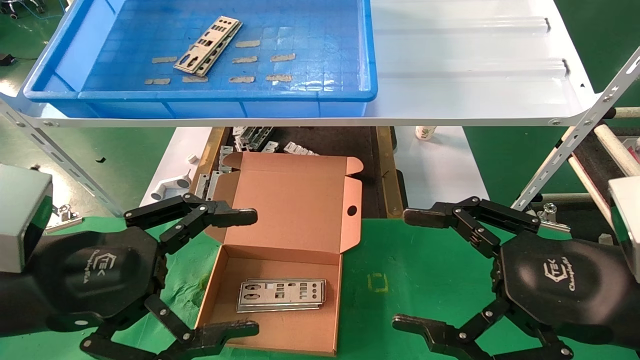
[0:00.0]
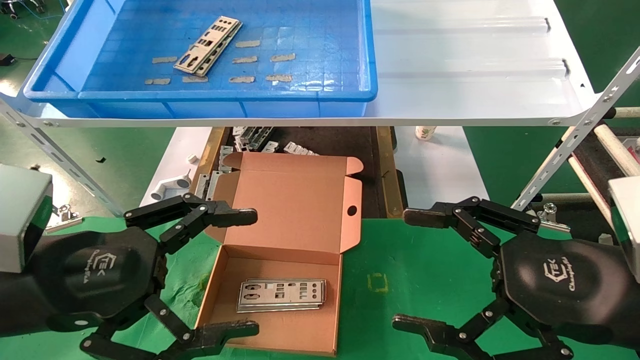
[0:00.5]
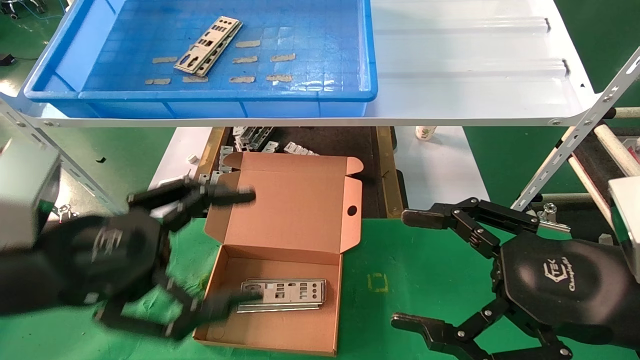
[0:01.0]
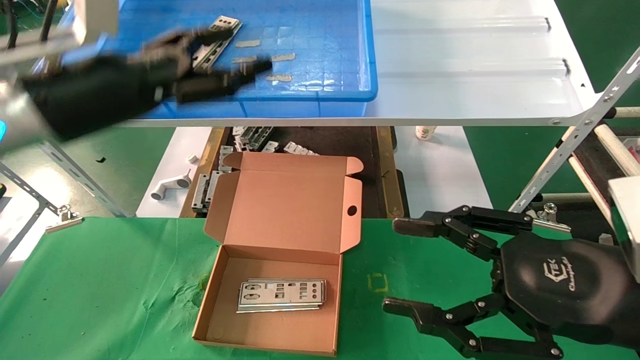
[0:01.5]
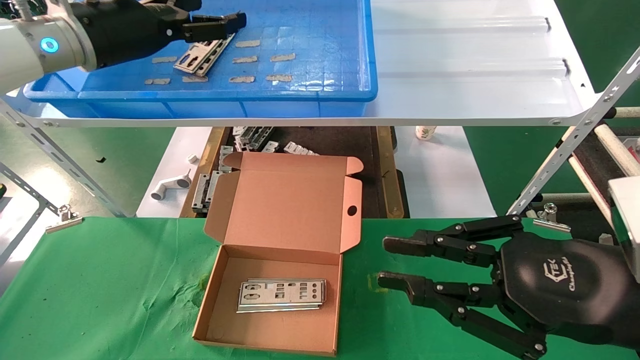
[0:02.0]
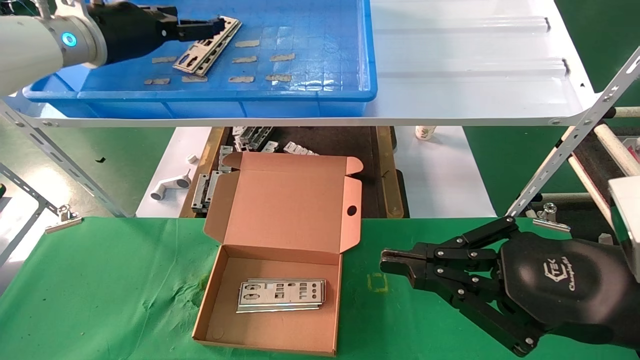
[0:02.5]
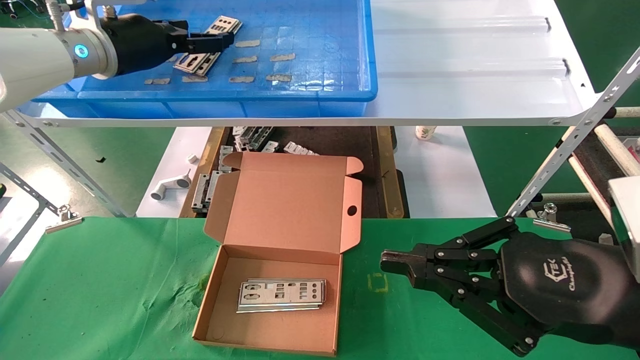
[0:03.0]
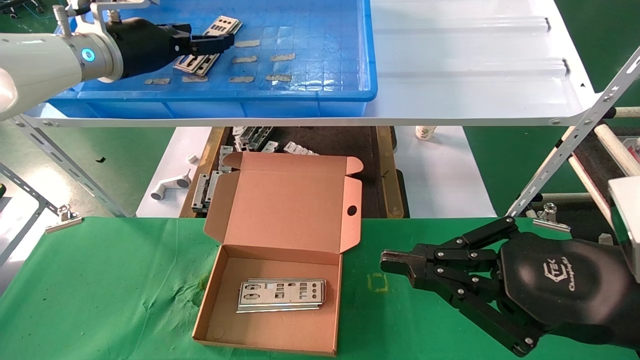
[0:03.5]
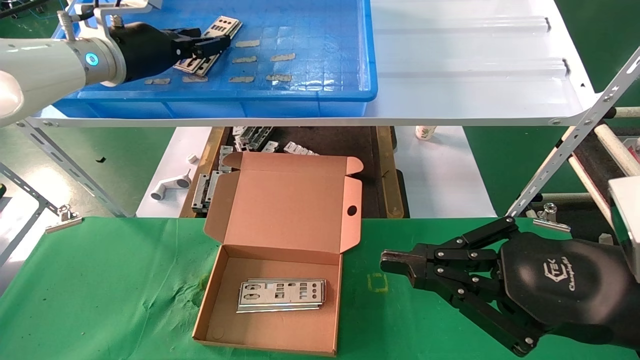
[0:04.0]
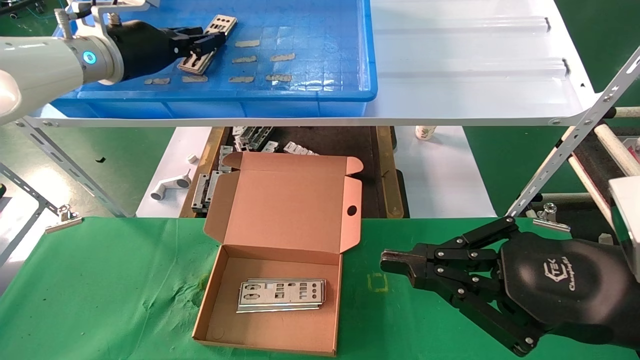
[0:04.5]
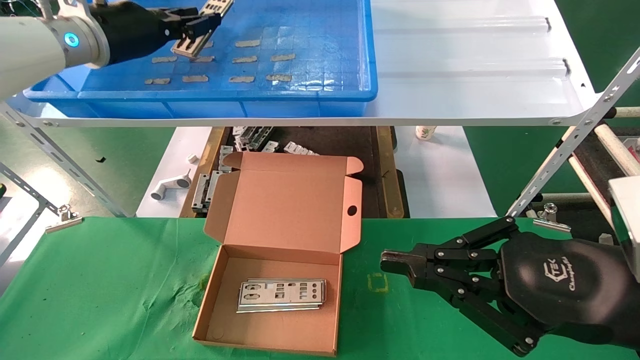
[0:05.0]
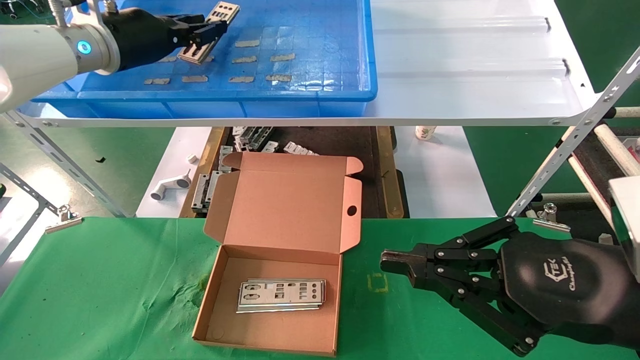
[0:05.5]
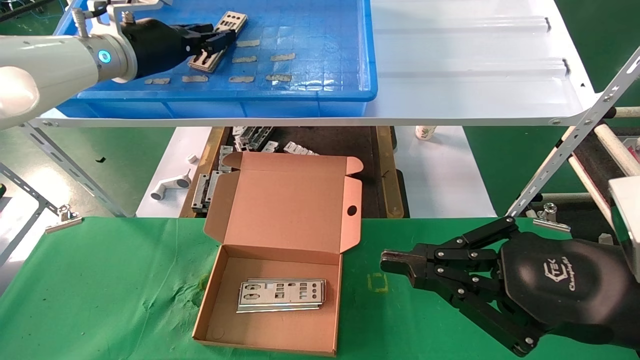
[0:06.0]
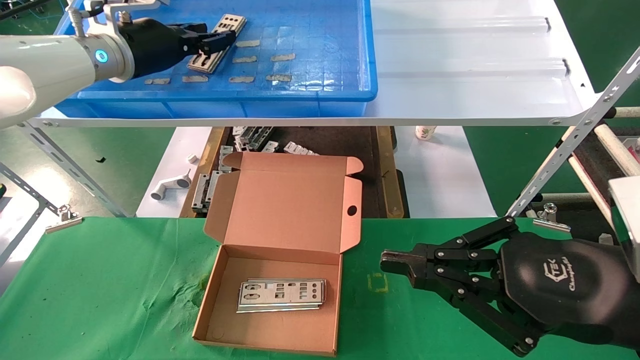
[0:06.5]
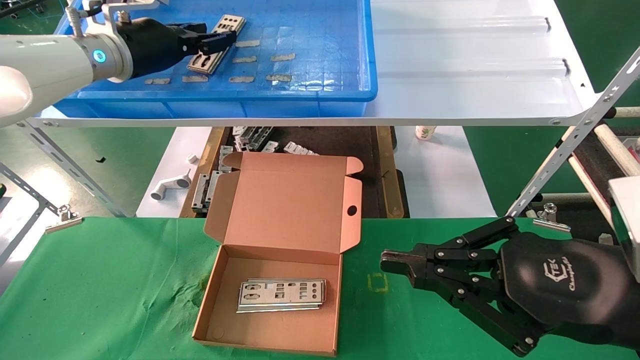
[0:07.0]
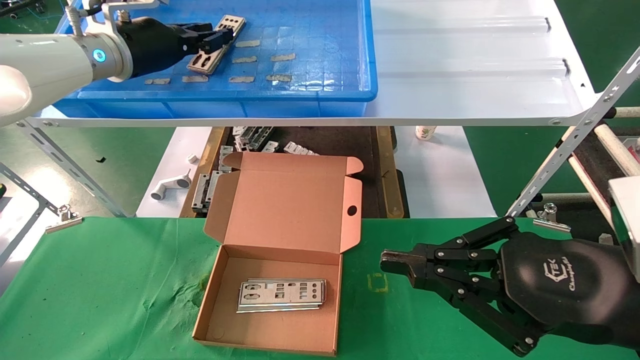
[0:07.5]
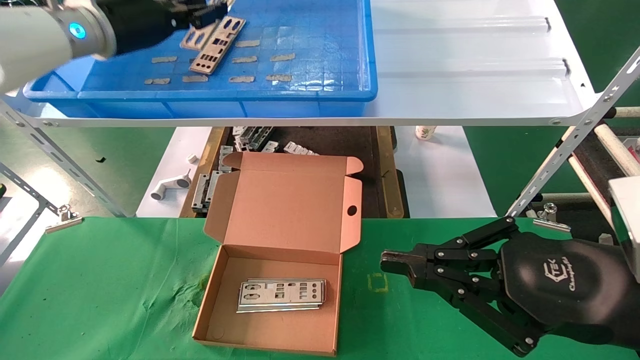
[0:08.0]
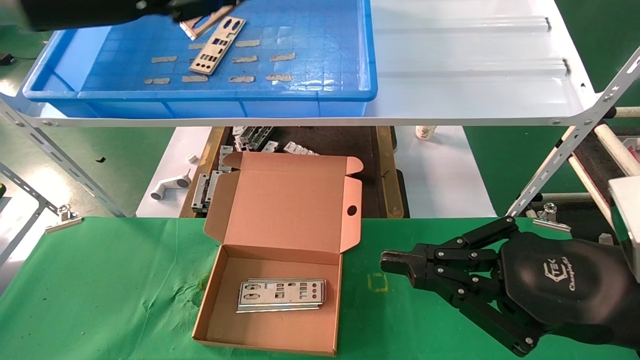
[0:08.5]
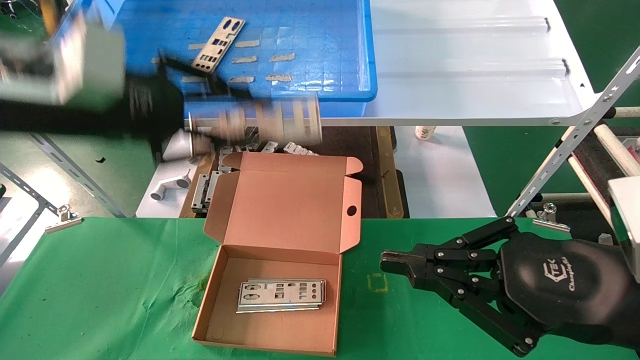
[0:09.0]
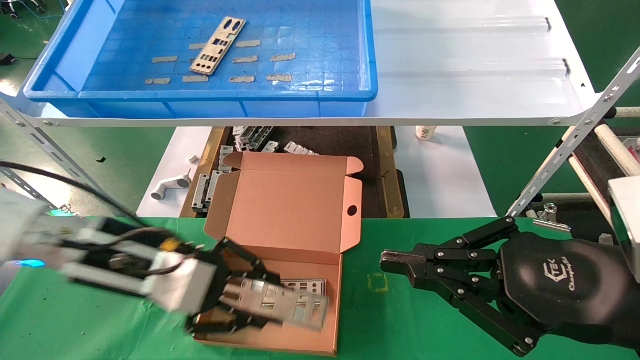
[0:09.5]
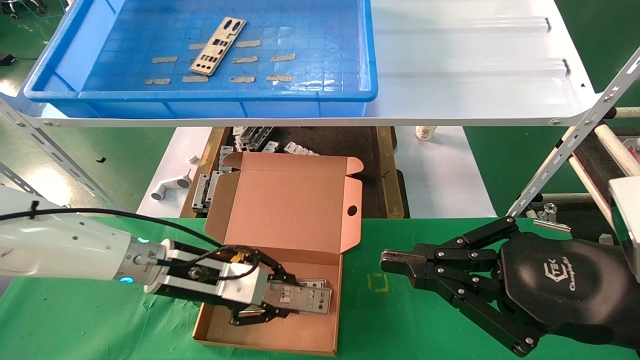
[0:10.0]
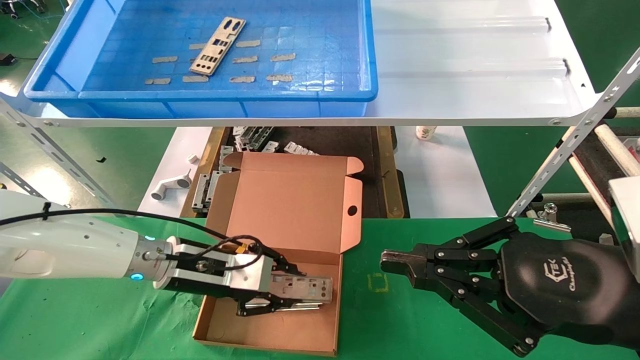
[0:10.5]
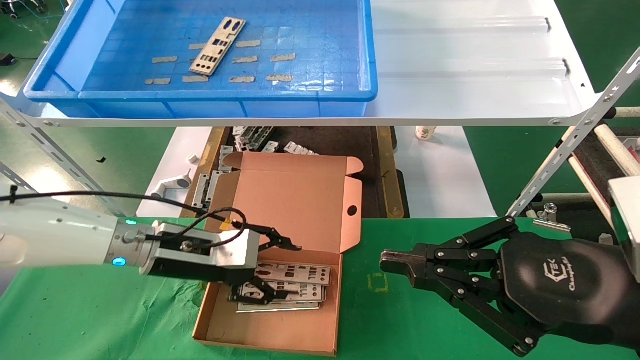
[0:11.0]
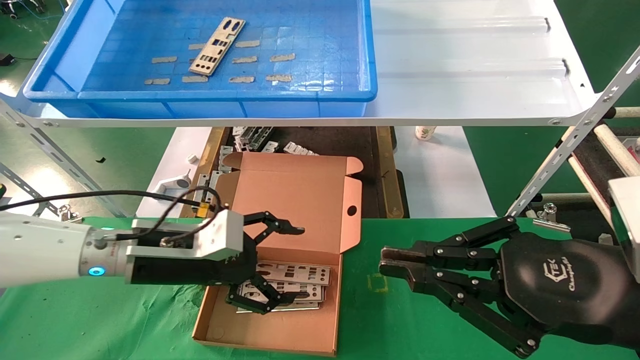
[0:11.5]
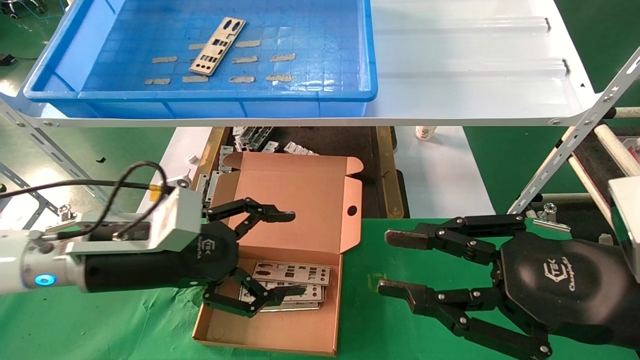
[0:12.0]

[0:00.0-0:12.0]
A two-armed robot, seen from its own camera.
Task of the whole recording: pick up the parts on the tray and put them in the cardboard box.
Step, 0:01.5 to 0:08.0: Pick up the IO bracket from the container box.
Step, 0:08.5 to 0:10.5: Place the IO bracket into the ingredient slot.
0:00.0 to 0:02.0: The right gripper closes; the left gripper is displaced forward and upward by approximately 30 cm.
0:02.0 to 0:04.0: The left gripper closes up.
0:04.0 to 0:06.0: The left gripper closes up.
0:06.0 to 0:08.0: The grippers stay close to where they were, moving slightly.
0:08.0 to 0:10.0: The left gripper goes roughly 30 cm downward.
0:10.0 to 0:12.0: The left gripper moves backward, some 5 cm, and opens.

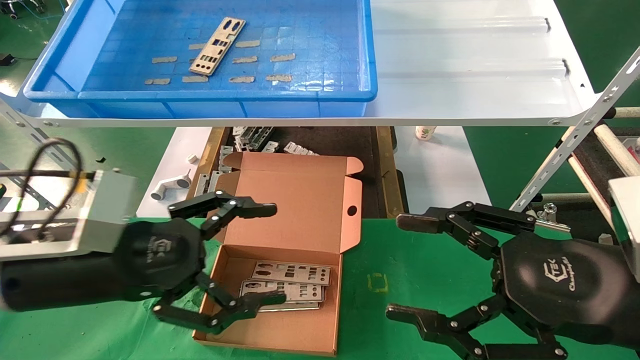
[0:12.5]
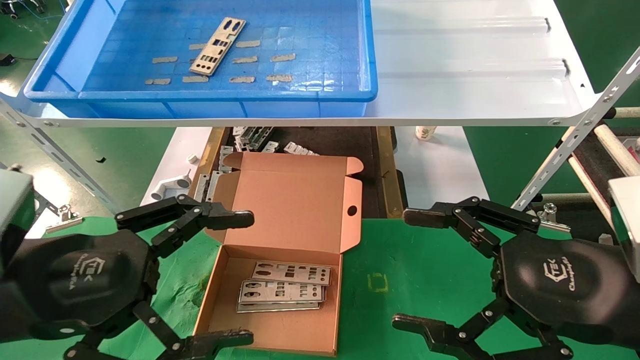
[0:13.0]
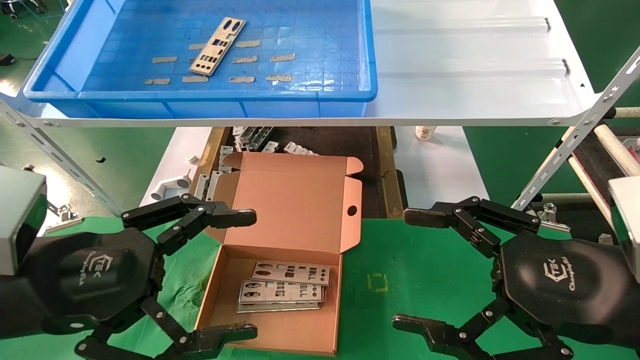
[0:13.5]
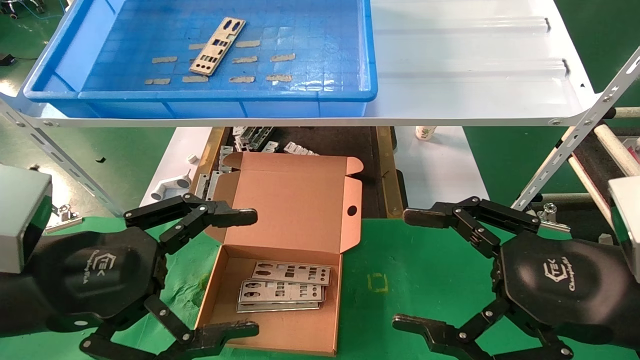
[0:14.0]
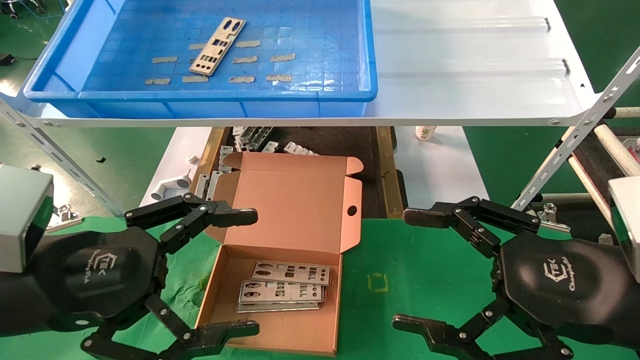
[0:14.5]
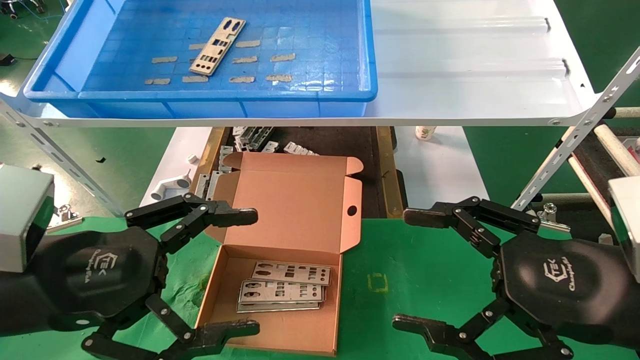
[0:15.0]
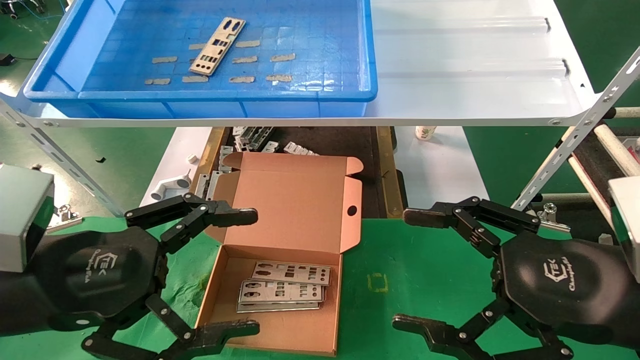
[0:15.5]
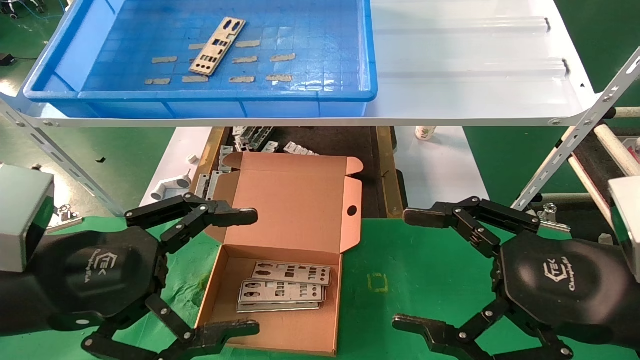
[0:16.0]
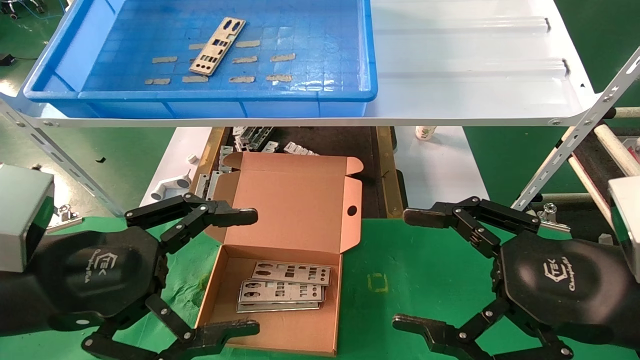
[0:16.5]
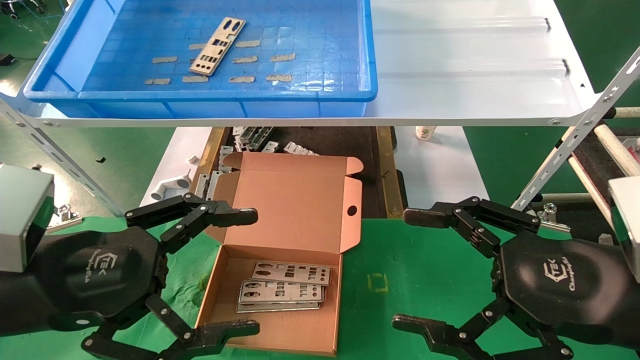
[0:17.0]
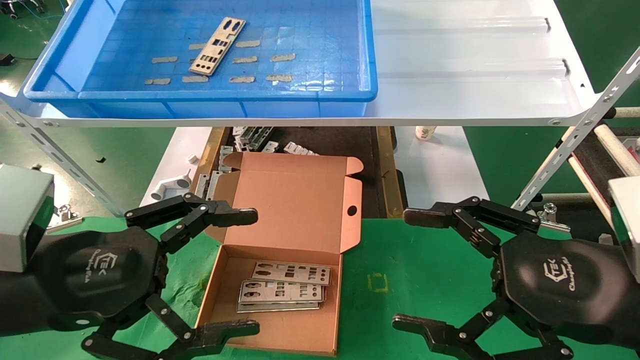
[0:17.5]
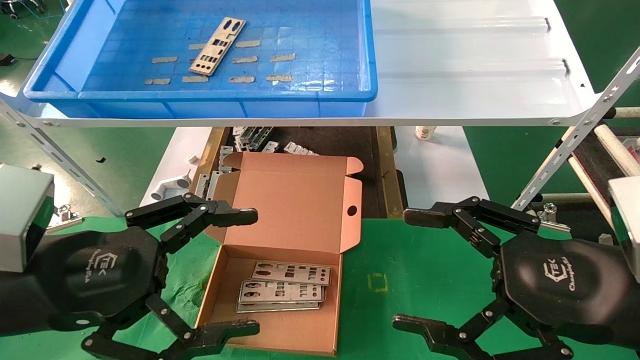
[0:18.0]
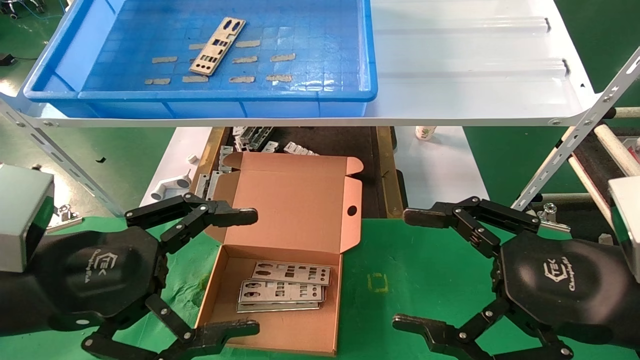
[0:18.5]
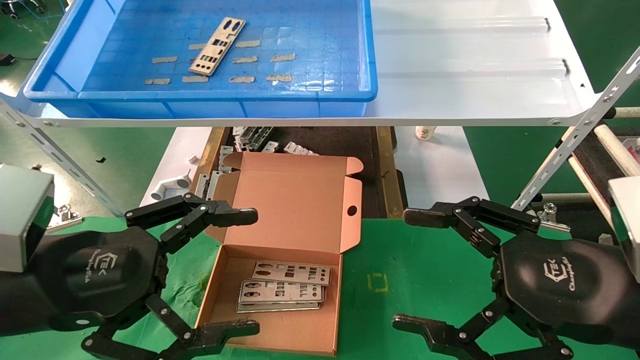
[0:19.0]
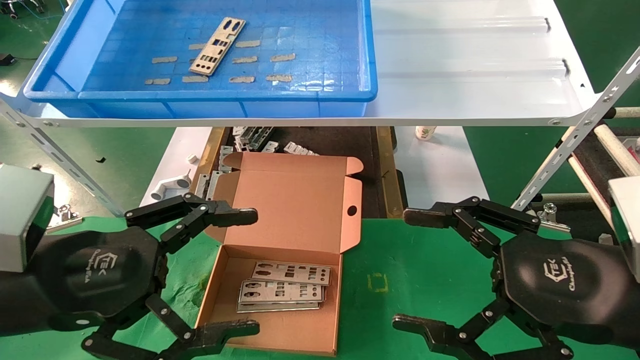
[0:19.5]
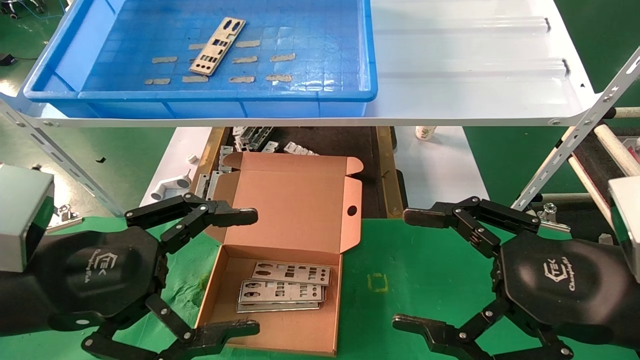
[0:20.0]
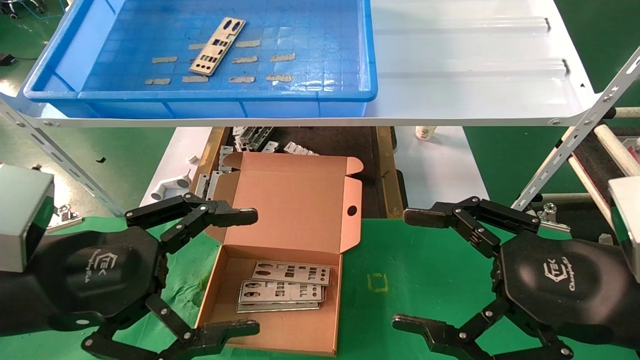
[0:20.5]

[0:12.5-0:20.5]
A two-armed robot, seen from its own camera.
Task of the whole recording: pick up the parts on the tray and put them in the cardboard box.
0:12.5 to 0:14.5: The left gripper moves about 5 cm.
0:14.5 to 0:20.5: Both grippers stay put.
